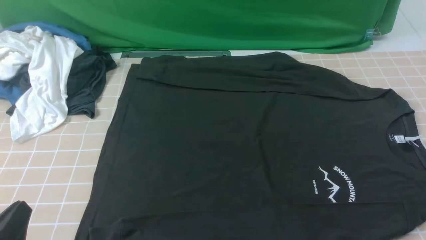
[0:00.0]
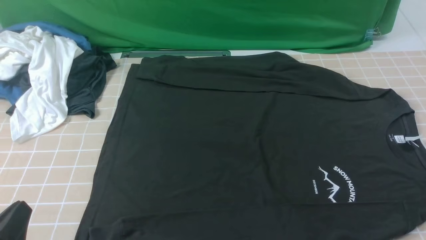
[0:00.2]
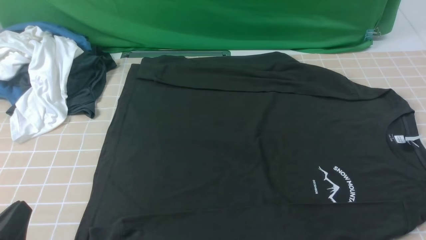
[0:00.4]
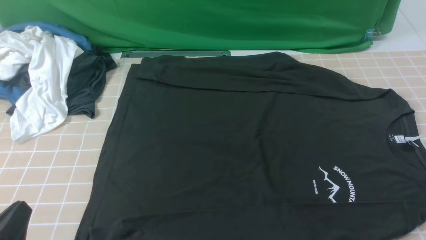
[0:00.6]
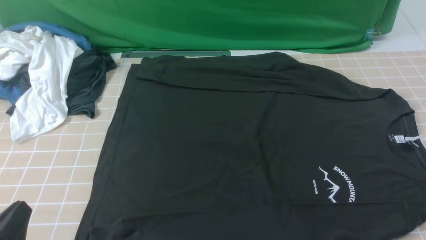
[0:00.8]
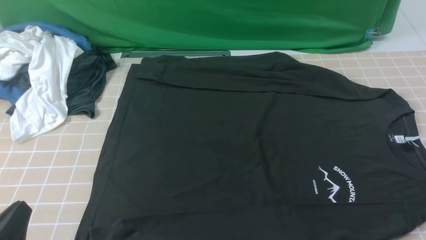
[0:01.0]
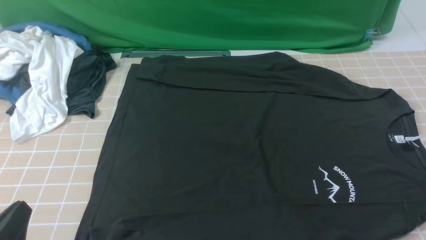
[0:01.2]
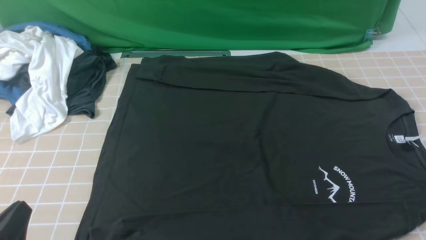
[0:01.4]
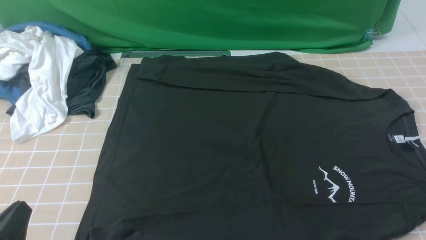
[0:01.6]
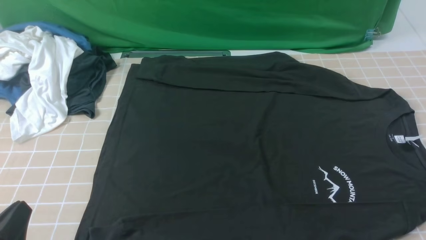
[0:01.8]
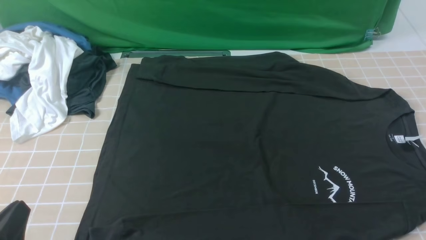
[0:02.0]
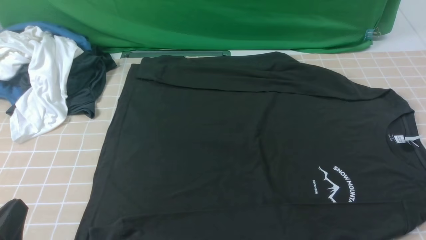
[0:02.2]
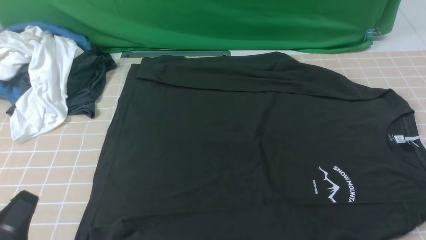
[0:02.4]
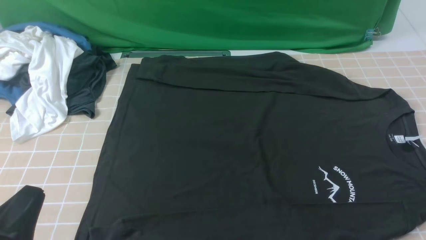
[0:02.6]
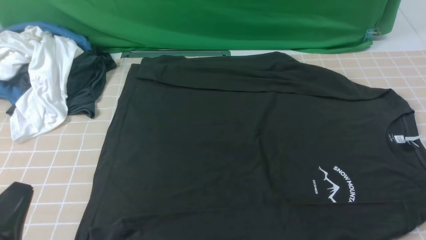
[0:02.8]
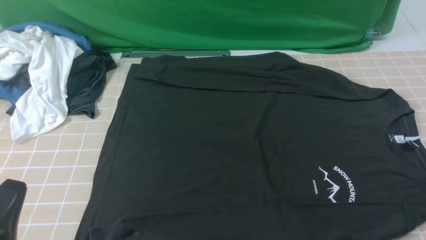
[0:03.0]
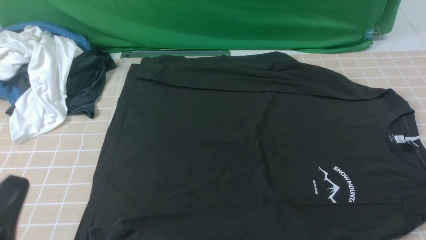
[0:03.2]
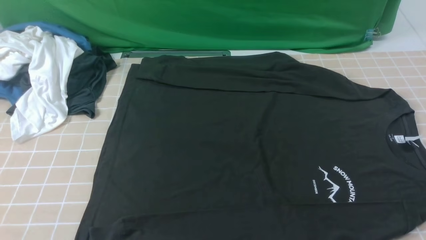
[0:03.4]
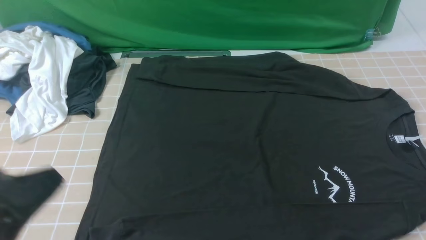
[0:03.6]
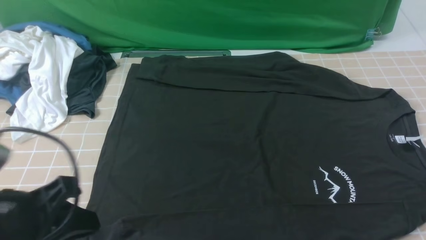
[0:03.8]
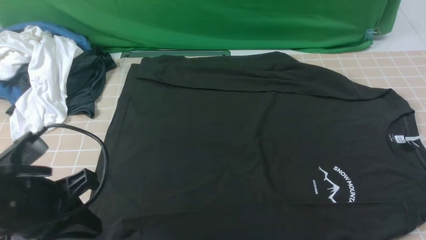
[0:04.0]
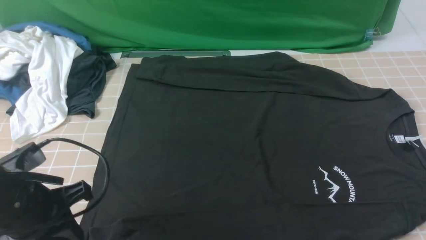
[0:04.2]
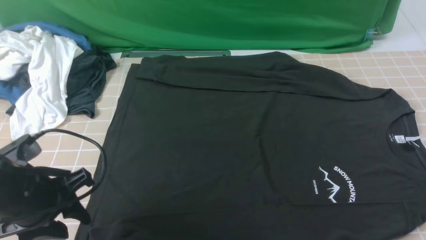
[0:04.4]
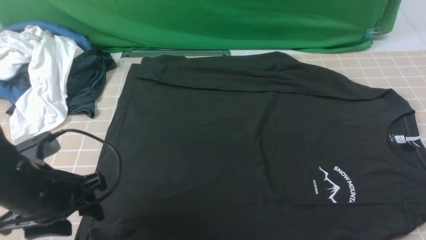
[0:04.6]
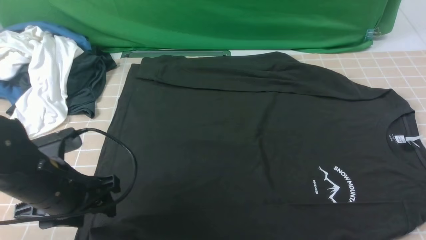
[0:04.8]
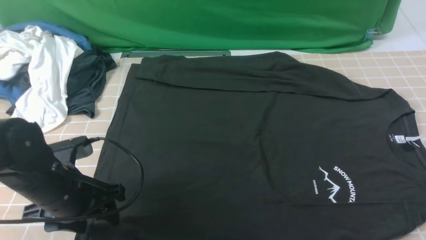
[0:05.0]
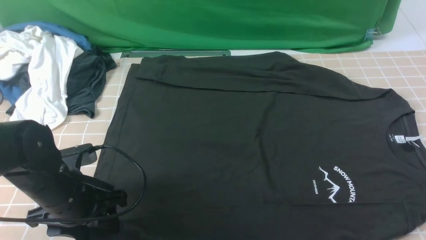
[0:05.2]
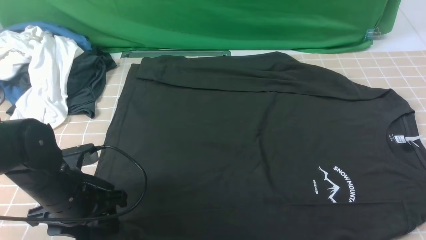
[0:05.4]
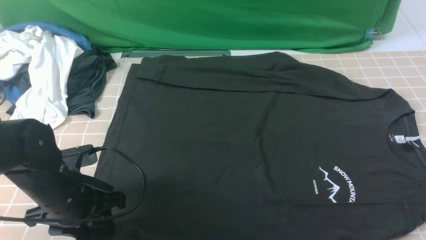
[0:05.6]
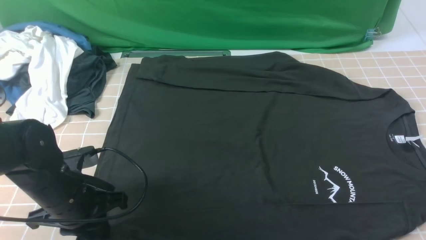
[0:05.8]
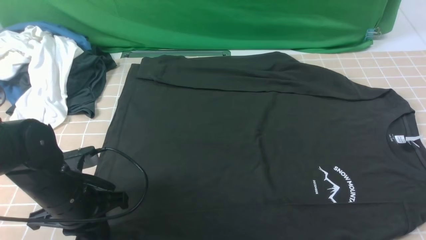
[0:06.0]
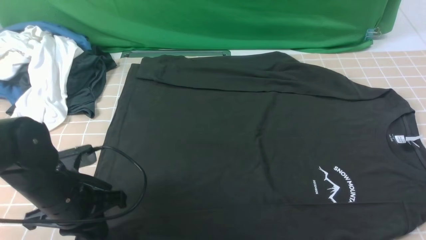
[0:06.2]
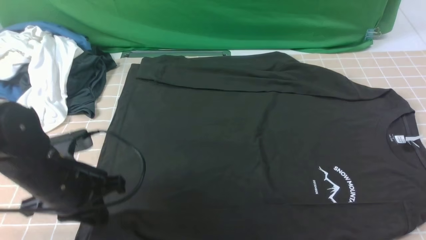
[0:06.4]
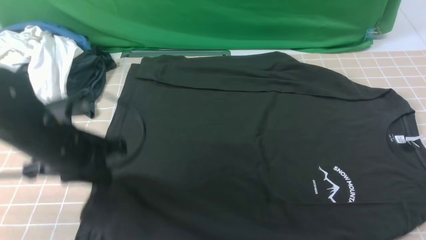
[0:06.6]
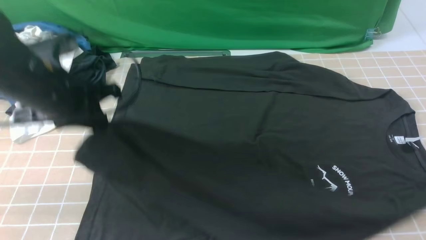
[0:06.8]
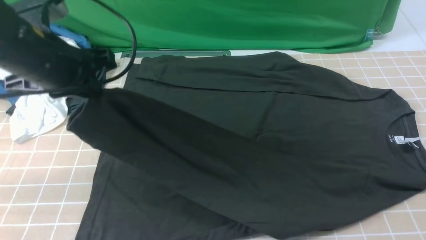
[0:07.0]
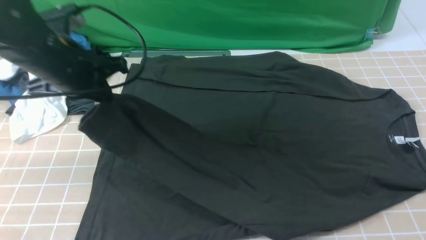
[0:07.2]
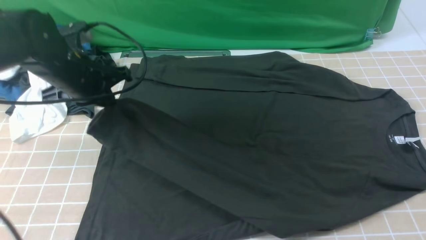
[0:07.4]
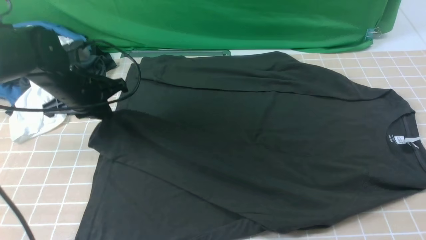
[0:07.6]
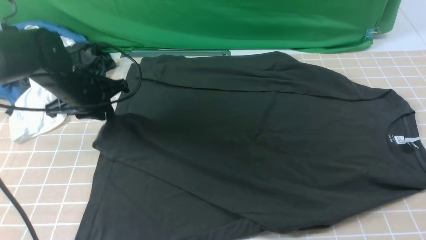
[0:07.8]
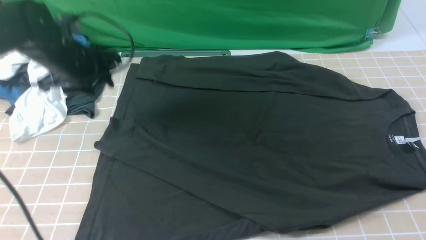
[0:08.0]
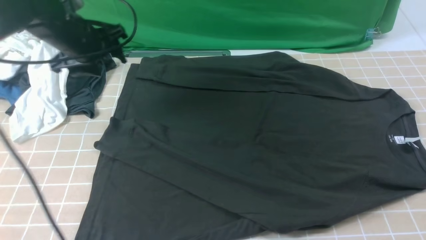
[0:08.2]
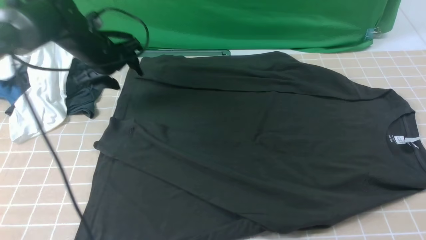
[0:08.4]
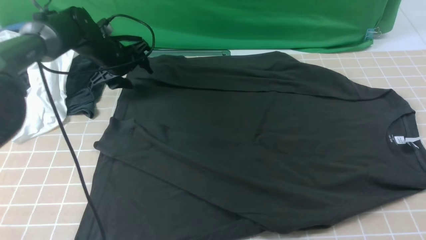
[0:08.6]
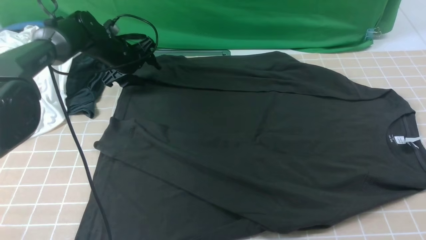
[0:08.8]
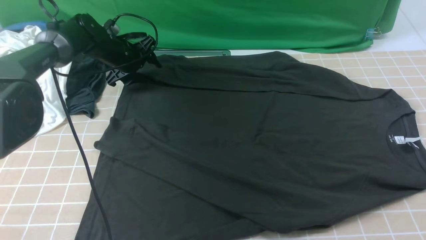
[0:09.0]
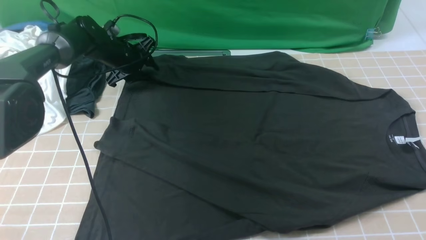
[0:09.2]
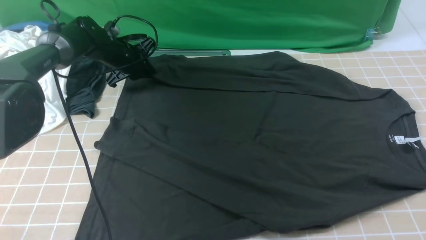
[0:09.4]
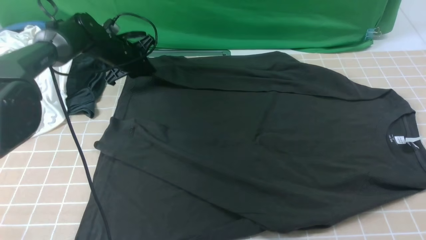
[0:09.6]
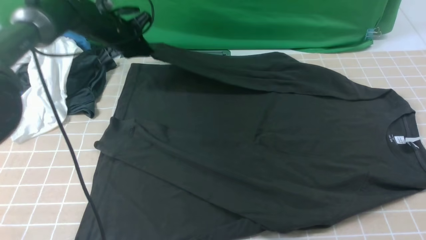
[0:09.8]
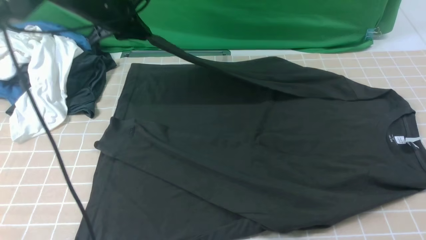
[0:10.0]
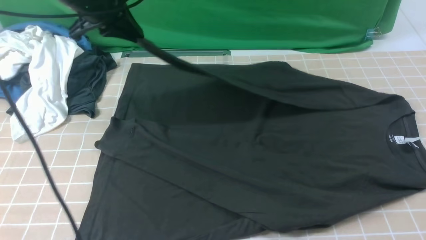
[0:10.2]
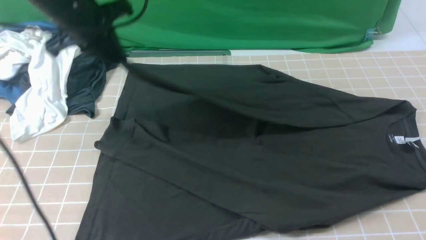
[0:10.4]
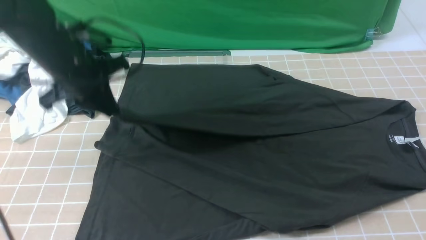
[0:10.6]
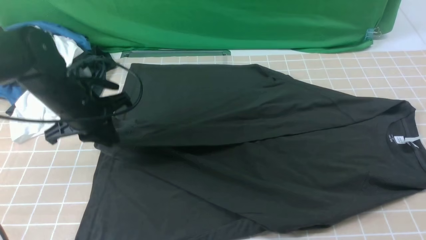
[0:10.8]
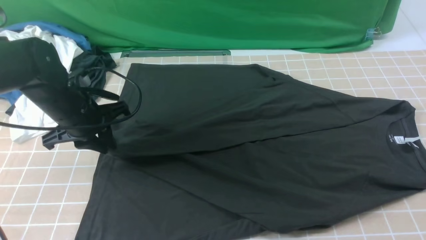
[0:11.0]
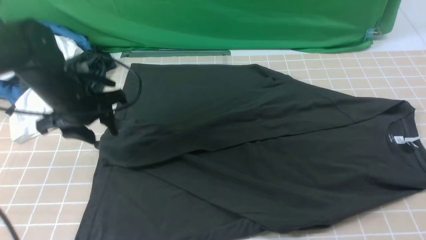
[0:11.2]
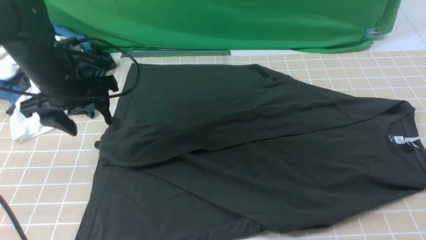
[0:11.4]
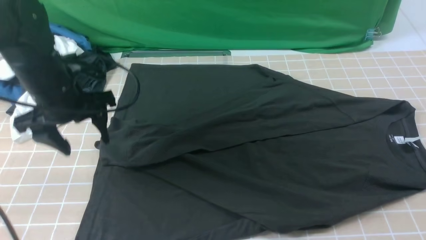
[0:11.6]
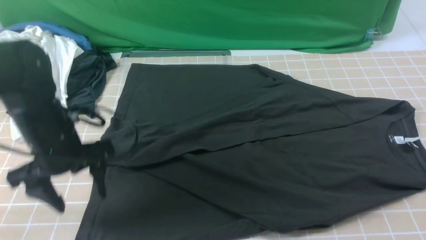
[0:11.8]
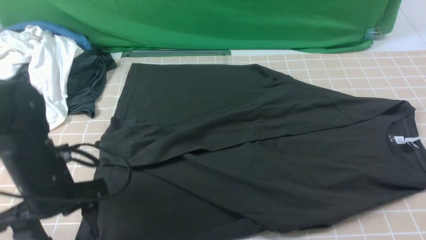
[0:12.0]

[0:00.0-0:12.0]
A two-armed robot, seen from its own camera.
Step, 0:00.0 to 0:06.0: use the left arm to clamp the cuff closest to it.
Step, 0:06.2 to 0:07.8: use the left arm to drag and place the cuff at the centered position on the left edge of the fabric.
Step, 0:08.0 to 0:09.4: use the left arm to clamp the cuff farthest from it.
Step, 0:09.6 to 0:11.2: use the left arm to drag and drop the cuff onto the cuff closest to the left arm.
0:00.0 to 0:01.6: Neither gripper changes place.
0:03.0 to 0:04.4: The left gripper is displaced forward by roughly 15 cm, and opens up.
0:04.4 to 0:06.0: The left gripper goes about 5 cm downward, and closes its fingers.
0:06.0 to 0:07.6: The left gripper is displaced forward by roughly 15 cm.
0:07.6 to 0:09.0: The left gripper shifts about 15 cm forward and downward, and opens its fingers.
0:09.0 to 0:10.4: The left gripper heads upward and backward, covering some 20 cm, and closes up.
0:10.4 to 0:12.0: The left gripper moves backward and downward, some 20 cm, and opens up.

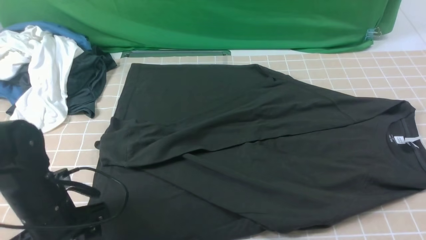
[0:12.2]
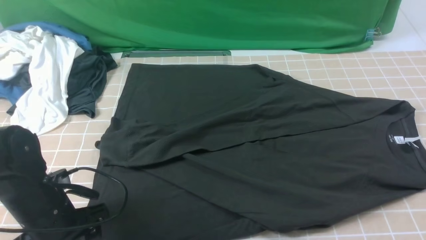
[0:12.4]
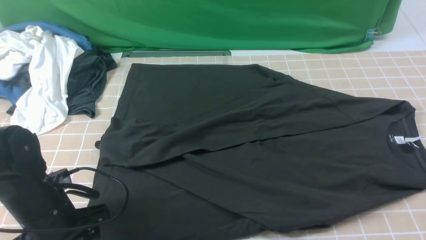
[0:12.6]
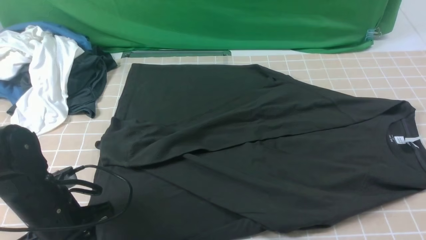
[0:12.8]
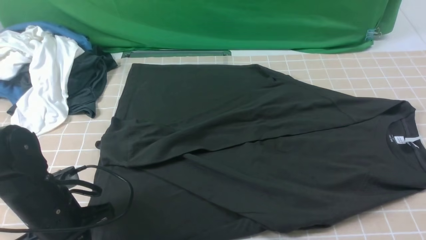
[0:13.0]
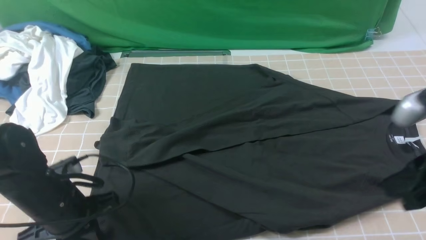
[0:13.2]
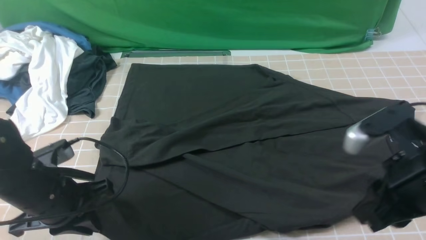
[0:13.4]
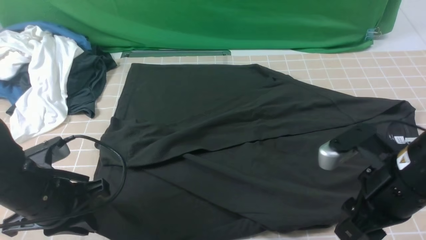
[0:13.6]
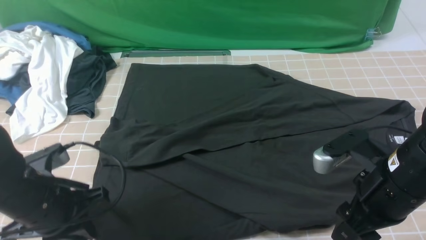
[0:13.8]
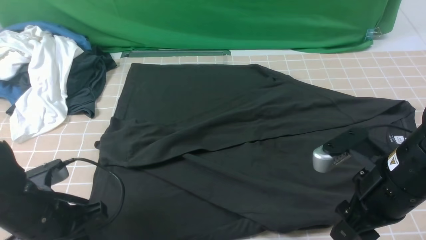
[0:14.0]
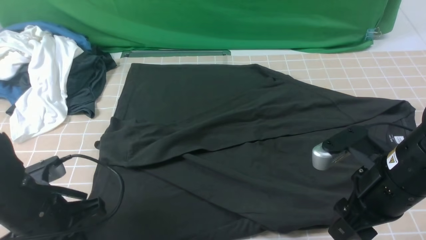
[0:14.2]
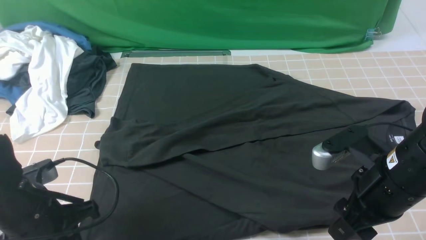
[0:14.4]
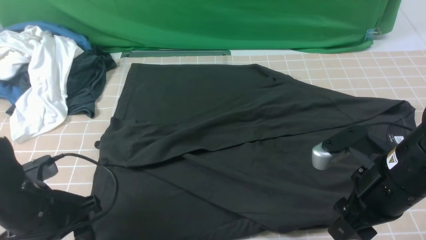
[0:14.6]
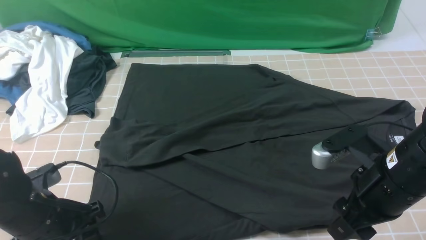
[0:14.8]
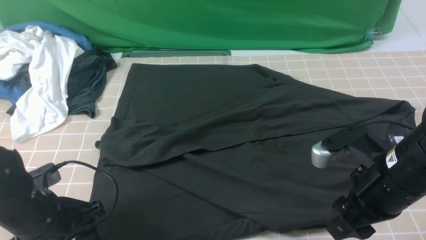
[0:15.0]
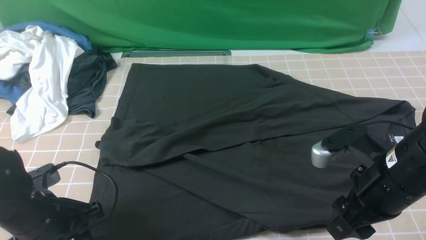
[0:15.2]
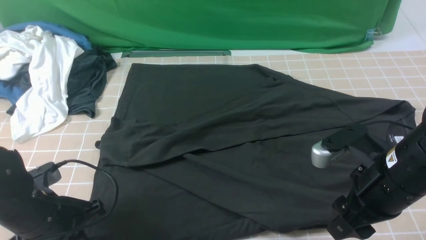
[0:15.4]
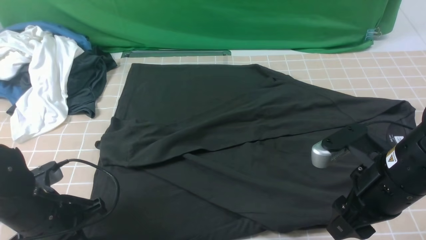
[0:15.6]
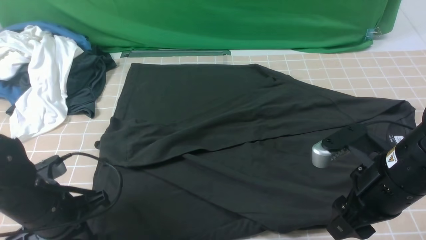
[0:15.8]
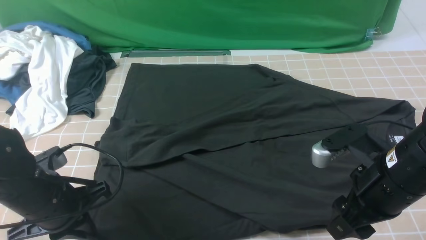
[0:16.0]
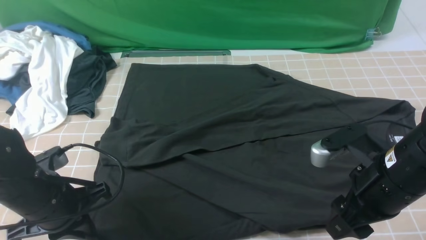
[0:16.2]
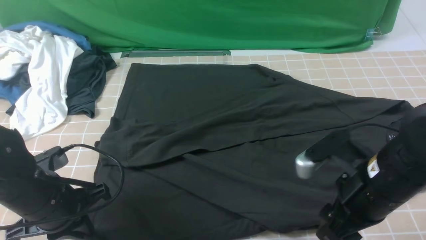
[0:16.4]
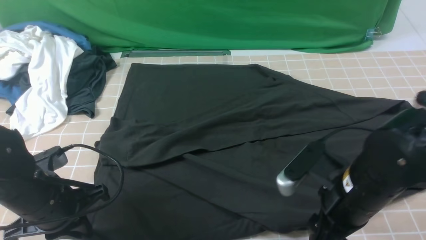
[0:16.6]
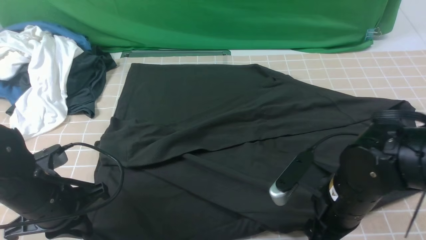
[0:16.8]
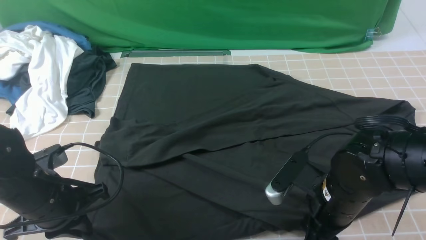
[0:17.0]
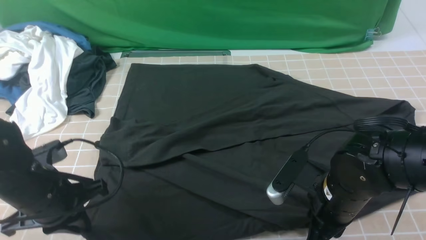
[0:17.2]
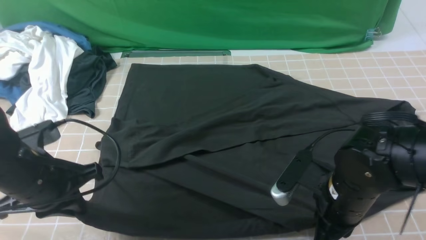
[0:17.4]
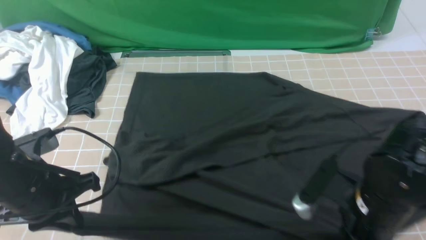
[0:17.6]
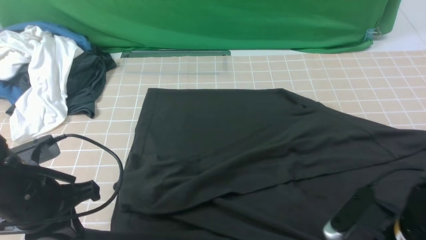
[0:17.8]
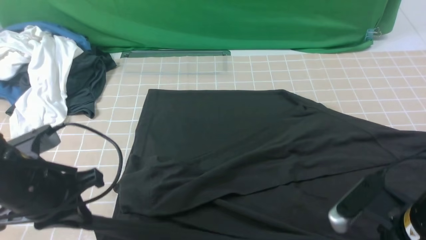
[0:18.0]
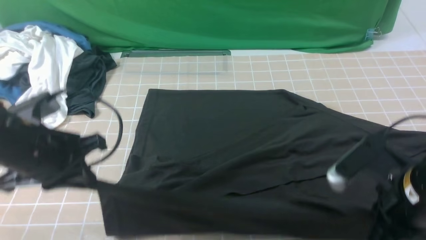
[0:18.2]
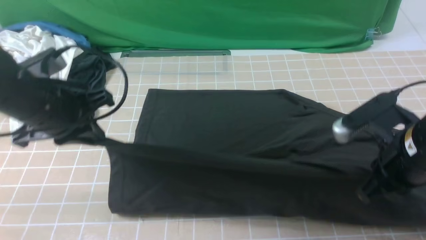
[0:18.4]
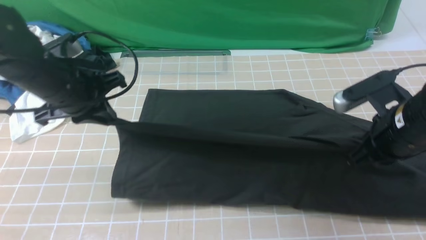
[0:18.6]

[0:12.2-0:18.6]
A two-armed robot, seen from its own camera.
Step, 0:12.2 to 0:17.2: use both arms simultaneously to clamp the lower edge of the clothing fabric.
0:12.2 to 0:13.8: The left gripper closes its fingers. Meanwhile the right gripper travels downward, to the left and forward by roughly 15 cm, and opens.
0:13.8 to 0:15.4: The left gripper opens, then closes once more.
0:15.4 to 0:17.0: The right gripper shifts some 5 cm downward.
0:17.0 to 0:18.6: The right gripper is displaced upward, to the right and forward by some 10 cm, and closes its fingers. Meanwhile the left gripper moves forward and upward, approximately 15 cm.
